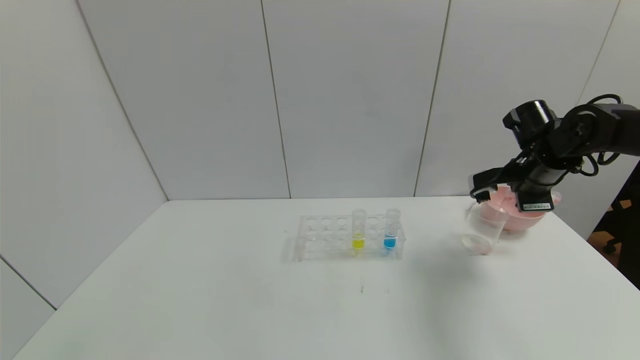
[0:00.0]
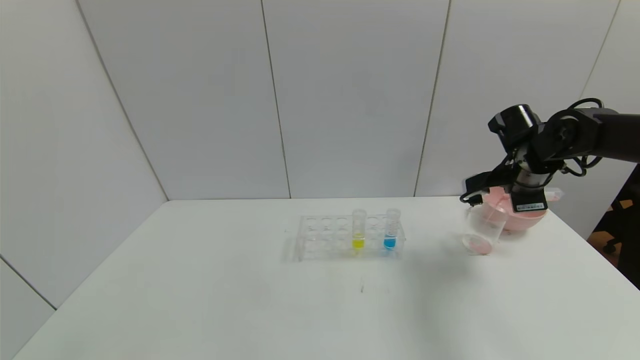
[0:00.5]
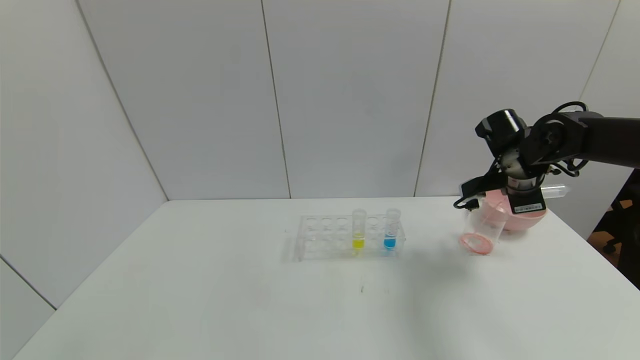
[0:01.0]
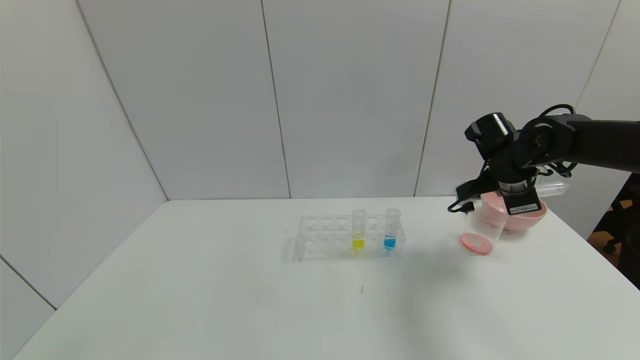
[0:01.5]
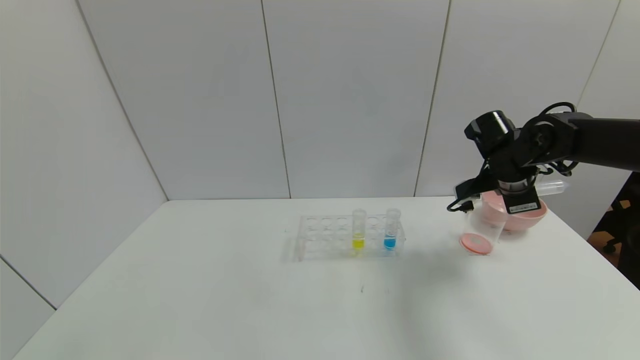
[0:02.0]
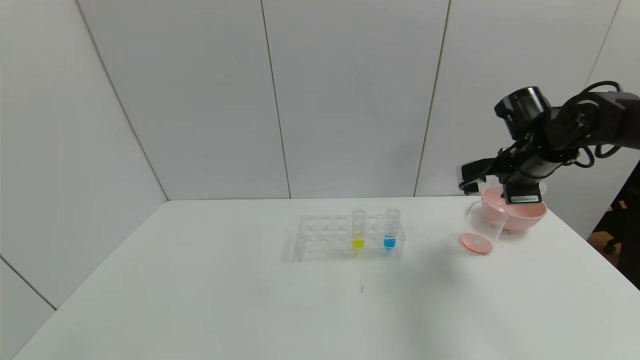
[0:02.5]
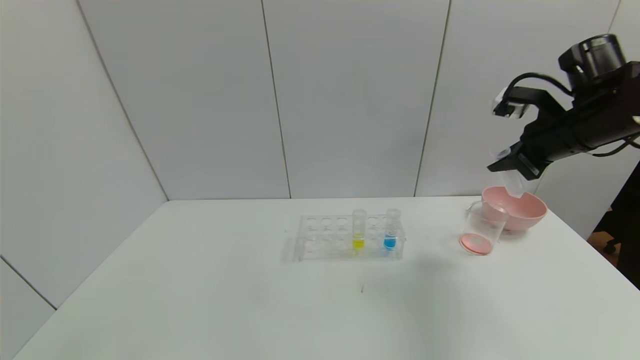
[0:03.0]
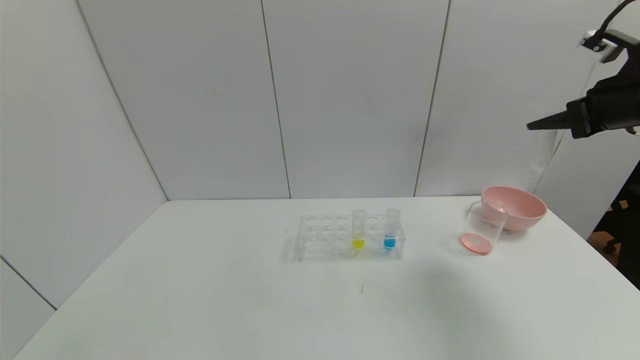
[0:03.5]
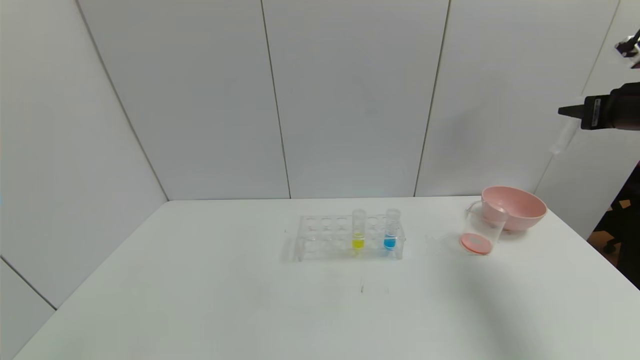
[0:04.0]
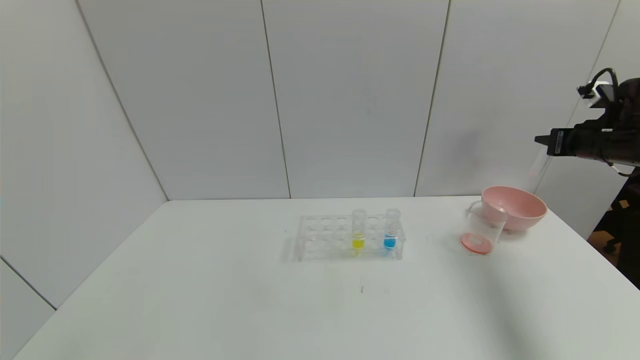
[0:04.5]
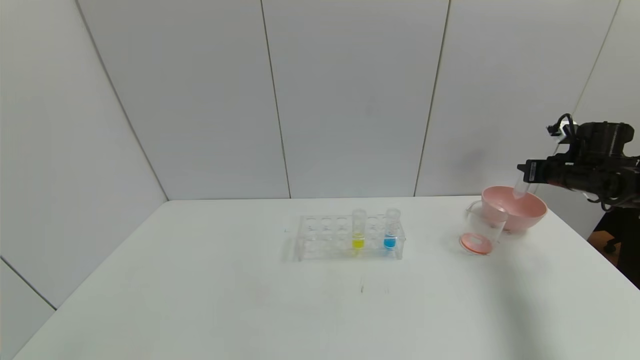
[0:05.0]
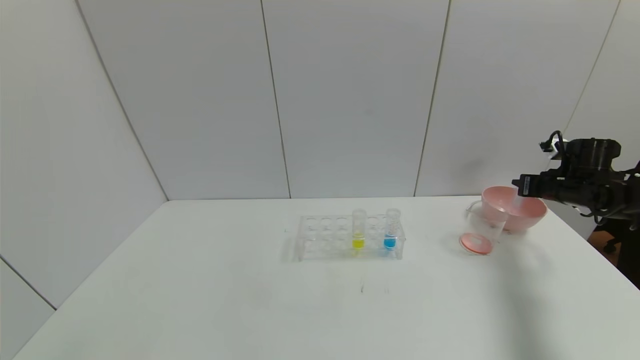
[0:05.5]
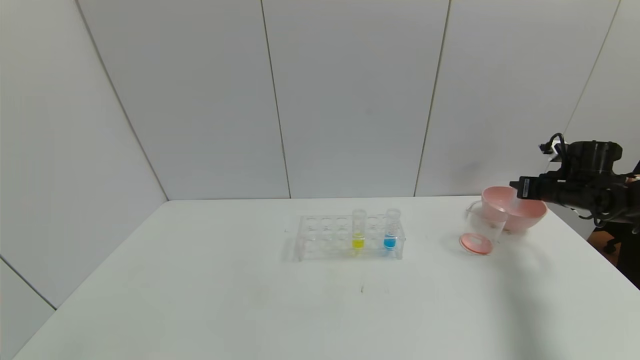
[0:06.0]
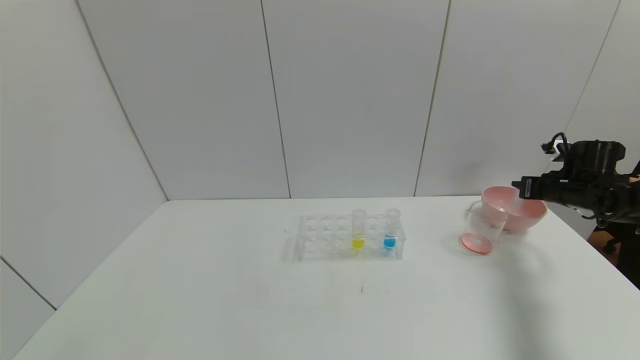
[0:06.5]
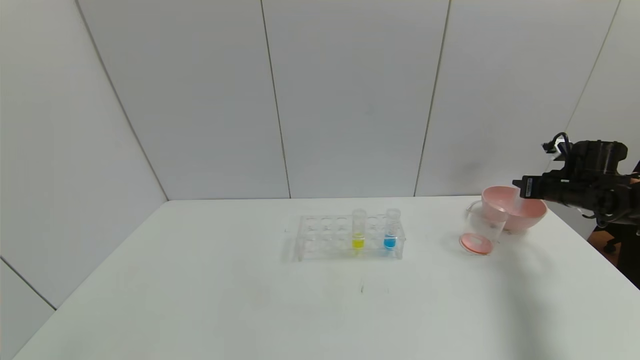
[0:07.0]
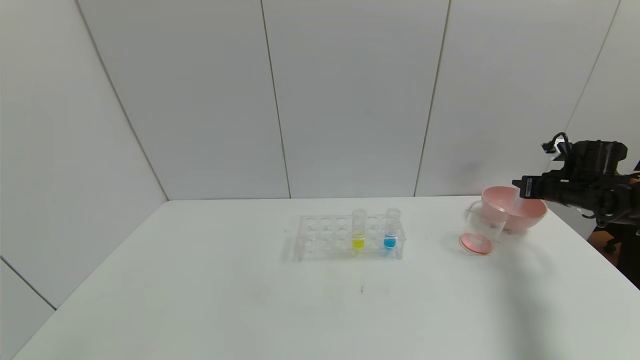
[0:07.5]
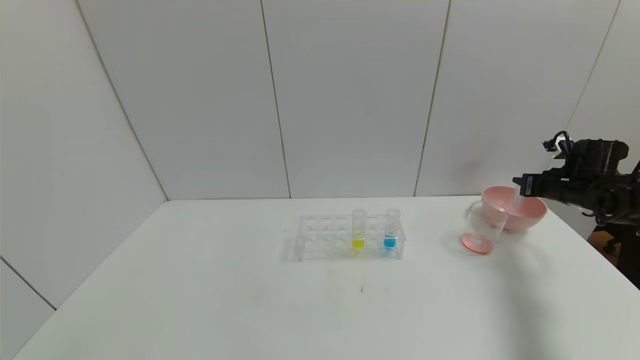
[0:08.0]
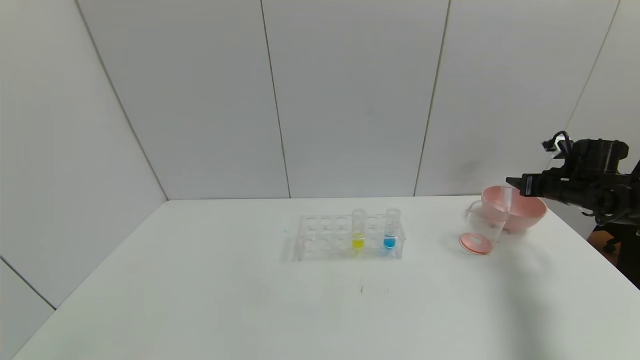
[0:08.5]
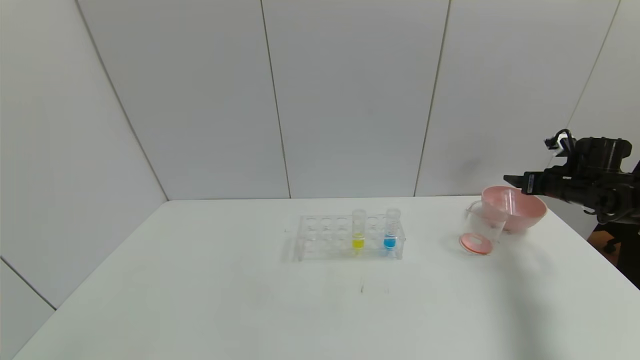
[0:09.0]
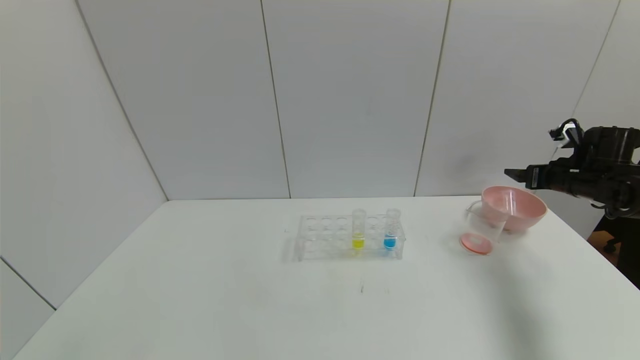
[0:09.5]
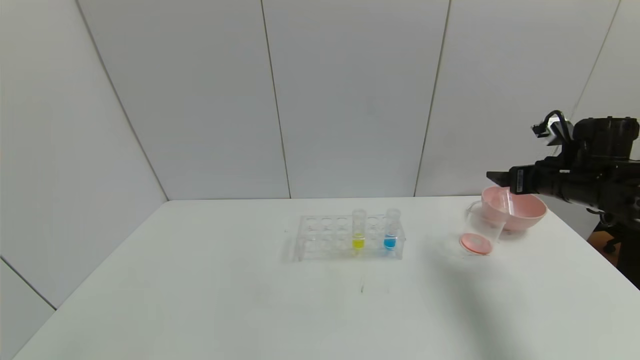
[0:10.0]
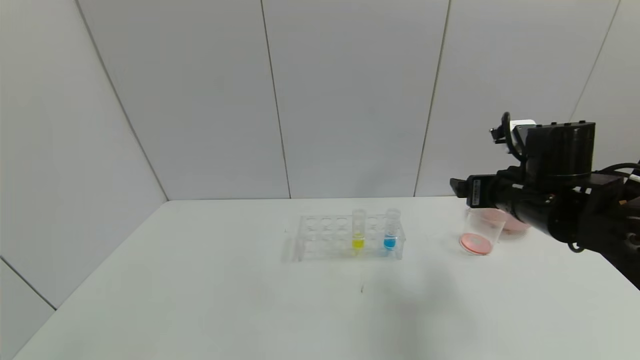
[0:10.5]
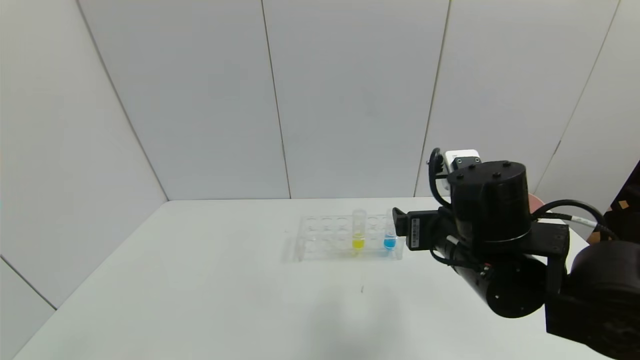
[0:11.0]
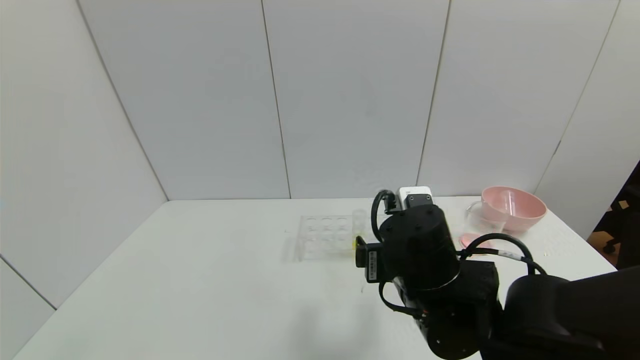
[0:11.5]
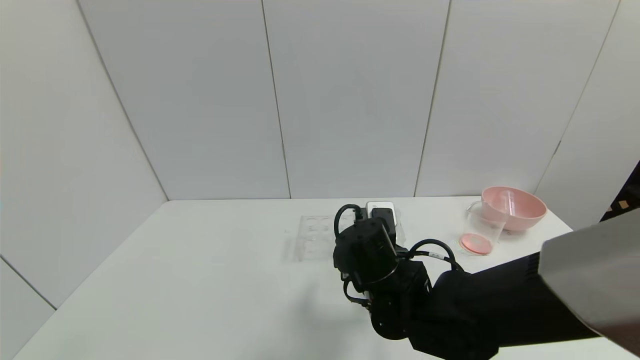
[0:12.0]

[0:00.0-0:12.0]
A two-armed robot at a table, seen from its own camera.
Task of the whole recording: pick up the test tube with yellow pigment and the test tube with red pigment by grippers and pour them into the beaker.
Step, 0:02.0 to 0:08.0: Place the test tube into the bowl with the right gripper.
0:00.0 to 0:02.0: There are only small adjustments of the grippers.
0:02.0 to 0:04.0: The right gripper moves to the right and upward, some 20 cm.
0:04.0 to 0:06.0: The right gripper goes some 20 cm downward and forward.
0:06.0 to 0:08.0: Both grippers stay about where they are.
0:08.0 to 0:10.0: The right gripper moves to the left, backward and upward, approximately 15 cm, and opens.
0:10.0 to 0:12.0: The right gripper goes roughly 30 cm to the left.

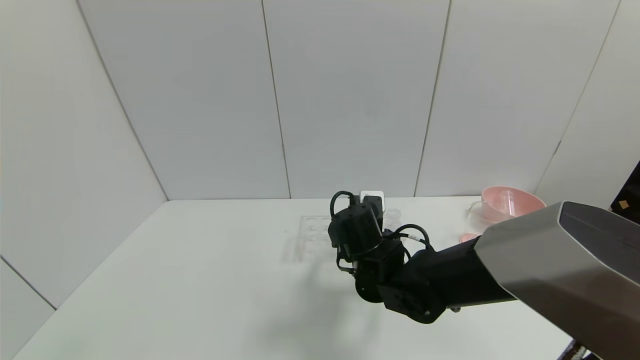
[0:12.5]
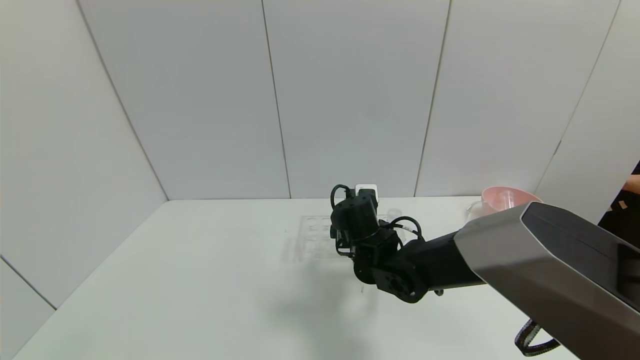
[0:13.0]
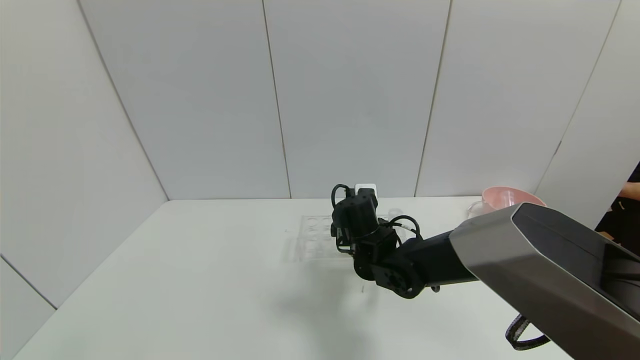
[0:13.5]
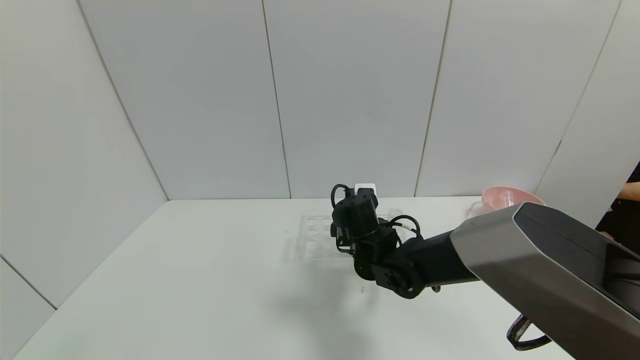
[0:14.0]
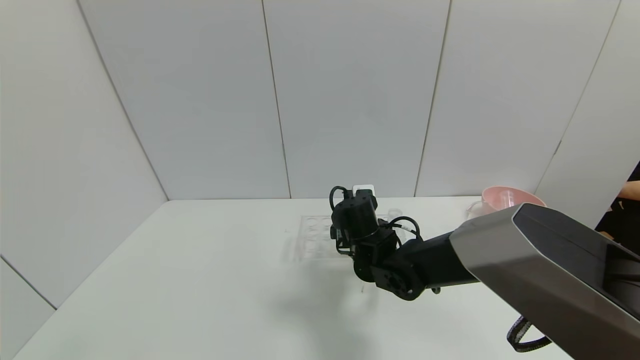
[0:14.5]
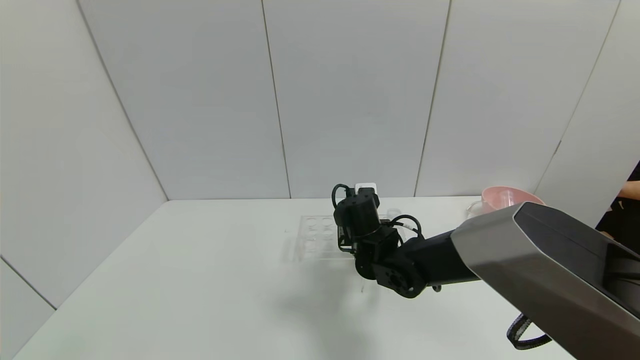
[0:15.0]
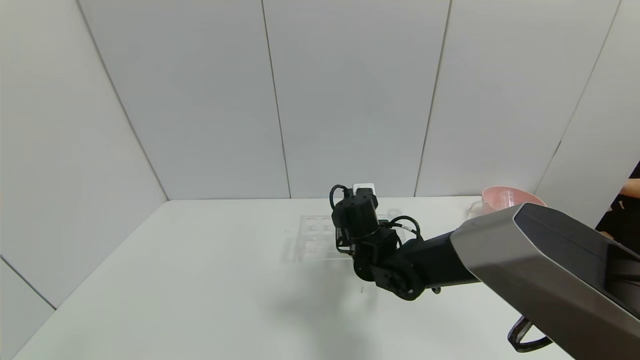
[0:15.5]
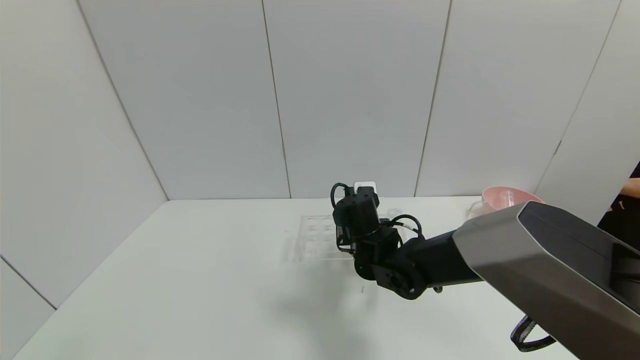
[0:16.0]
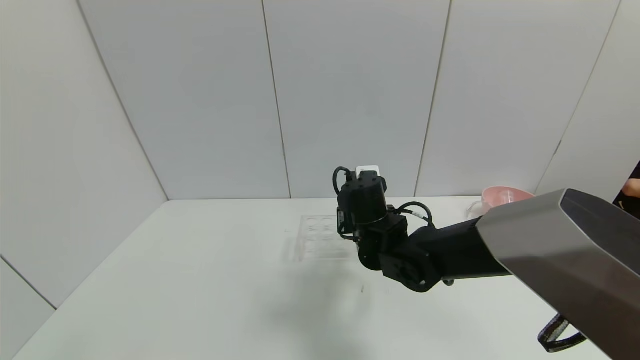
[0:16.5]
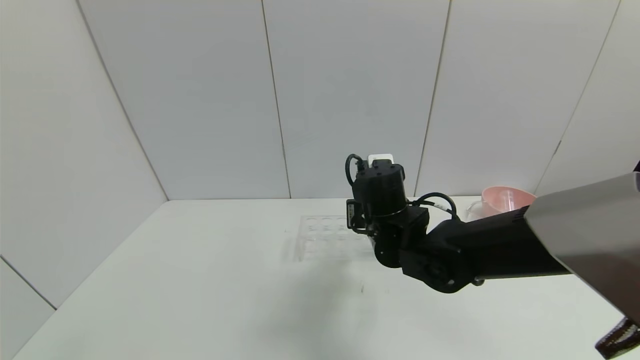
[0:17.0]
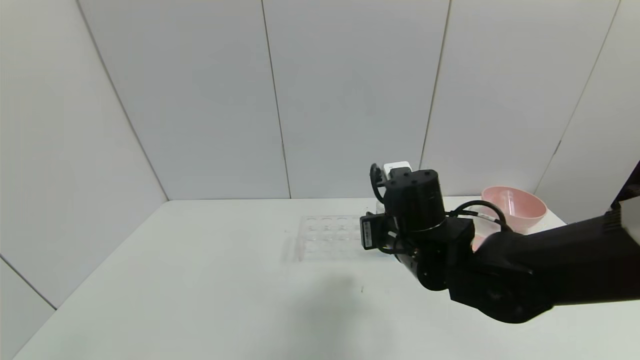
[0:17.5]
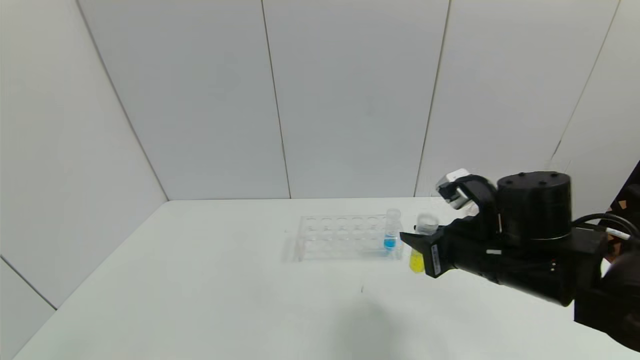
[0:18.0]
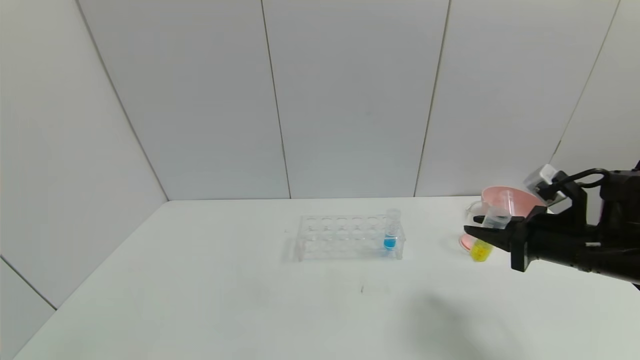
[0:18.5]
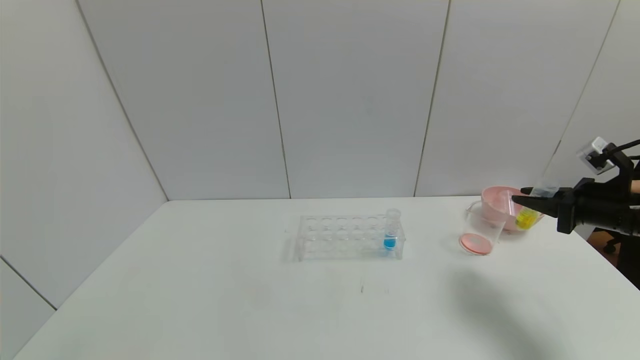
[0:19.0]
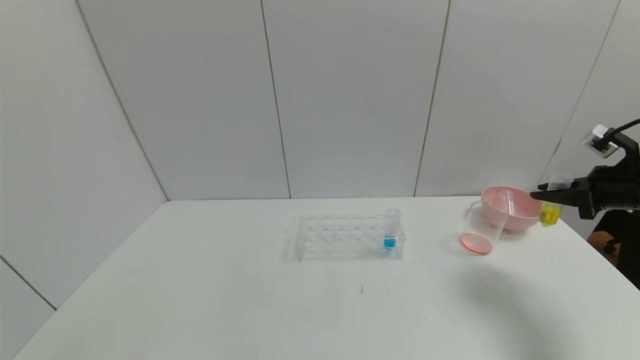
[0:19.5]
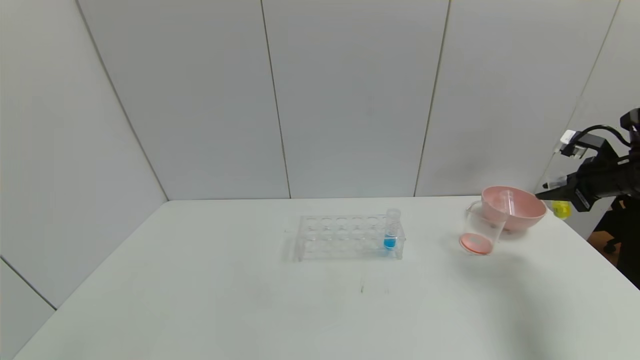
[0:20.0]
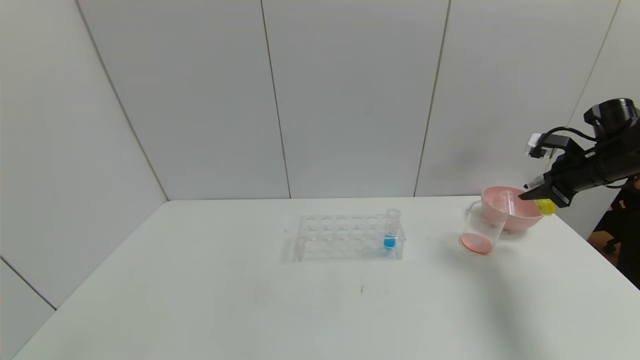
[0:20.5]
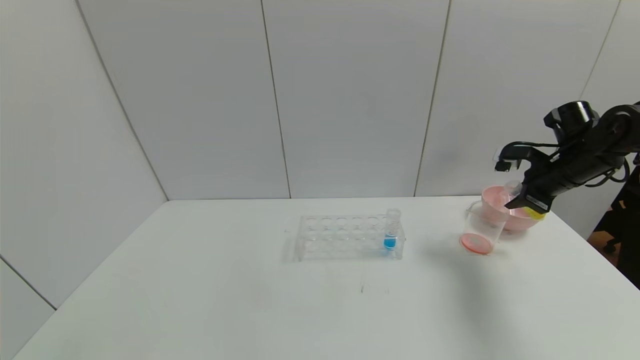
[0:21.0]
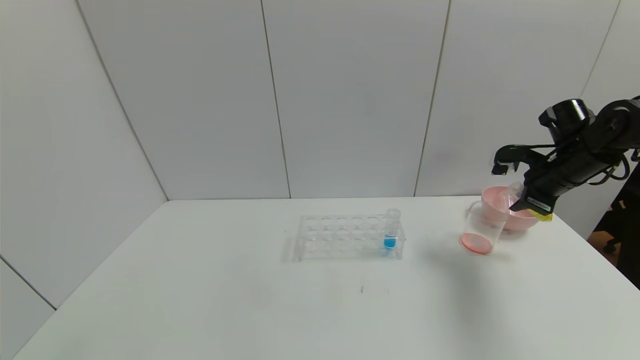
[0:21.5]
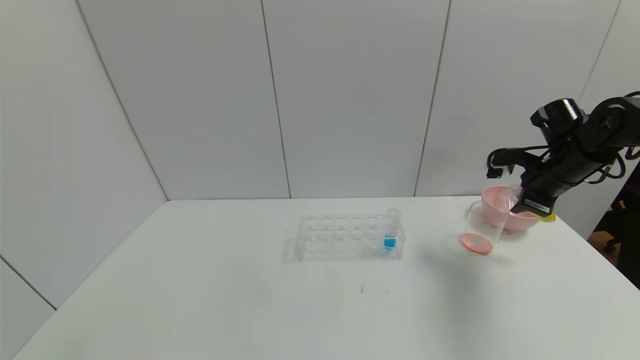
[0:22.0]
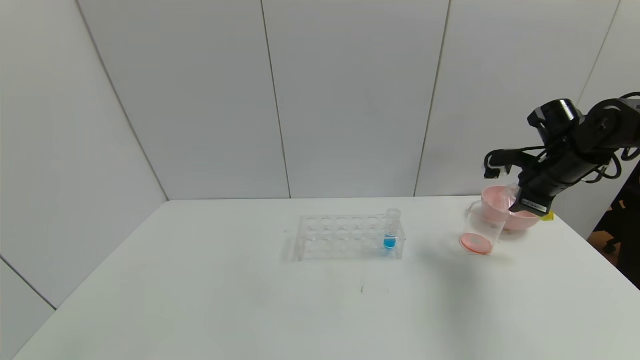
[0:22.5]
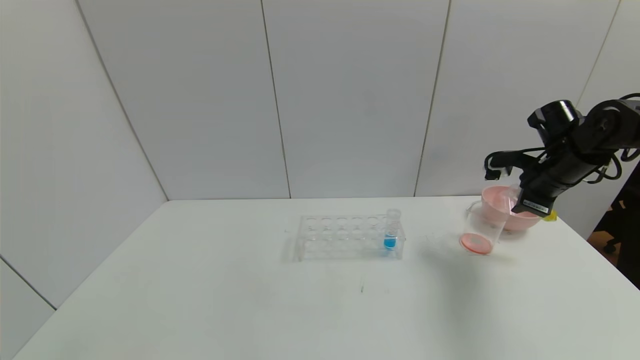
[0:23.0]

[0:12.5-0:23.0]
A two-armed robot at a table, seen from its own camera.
Task of the whole recording: pick up the test tube with yellow pigment and the test tube with red pigment by grippers and pour them into the beaker.
Step, 0:12.5 to 0:15.5: Grasp the yellow reagent with the right gripper.
0:12.5 to 0:14.5: The grippers make only small movements.
0:14.5 to 0:16.5: The right gripper closes its fingers.
0:16.5 to 0:19.0: The right gripper heads to the right, covering approximately 35 cm.
0:19.0 to 0:21.0: The right gripper travels forward by approximately 10 cm.
0:21.0 to 0:23.0: The grippers stay close to where they were, moving slightly.
